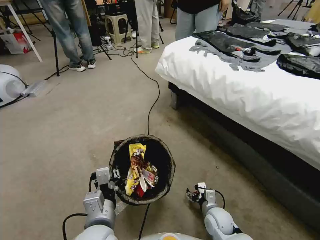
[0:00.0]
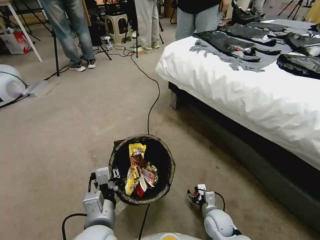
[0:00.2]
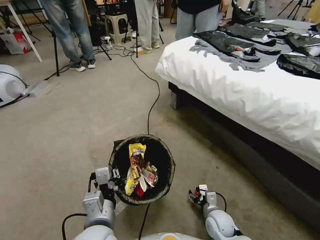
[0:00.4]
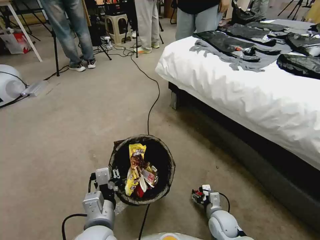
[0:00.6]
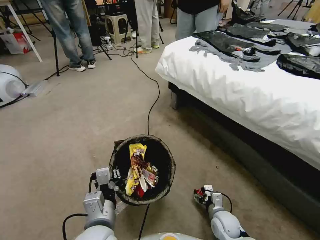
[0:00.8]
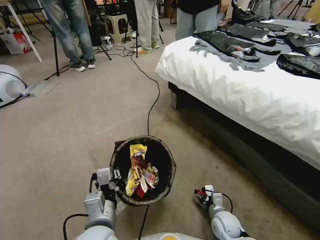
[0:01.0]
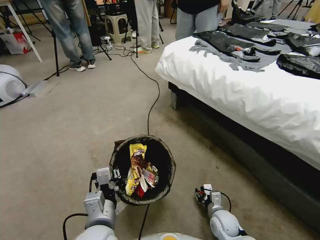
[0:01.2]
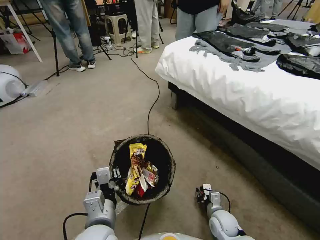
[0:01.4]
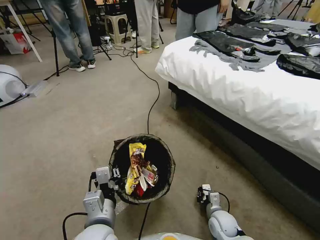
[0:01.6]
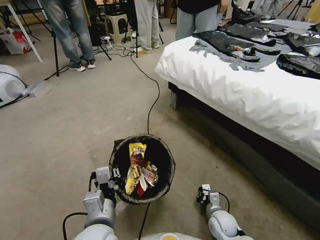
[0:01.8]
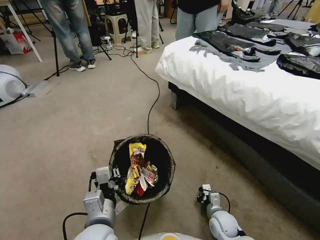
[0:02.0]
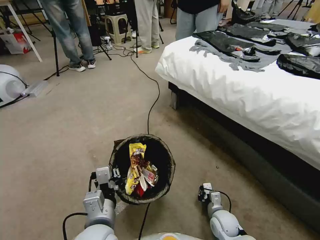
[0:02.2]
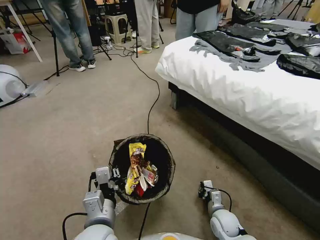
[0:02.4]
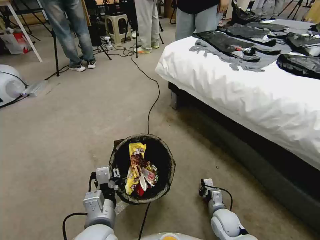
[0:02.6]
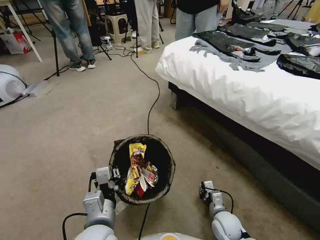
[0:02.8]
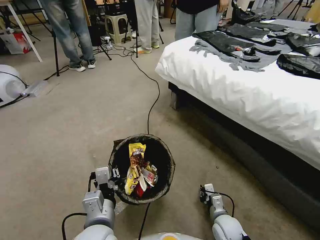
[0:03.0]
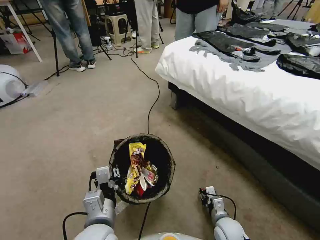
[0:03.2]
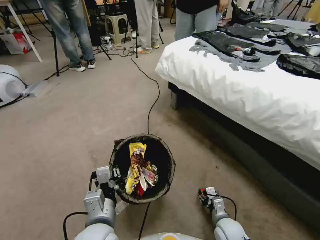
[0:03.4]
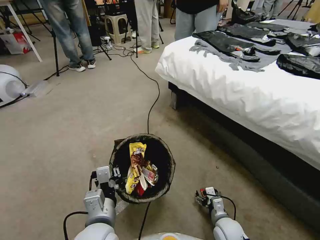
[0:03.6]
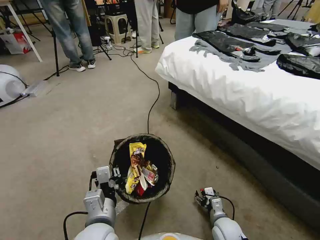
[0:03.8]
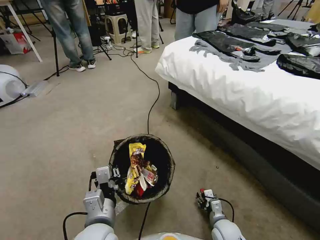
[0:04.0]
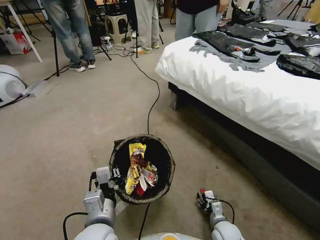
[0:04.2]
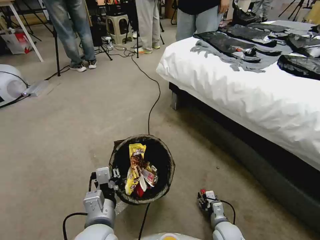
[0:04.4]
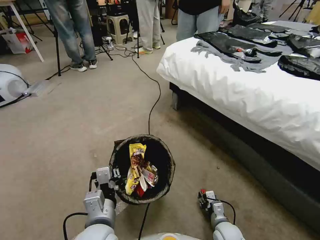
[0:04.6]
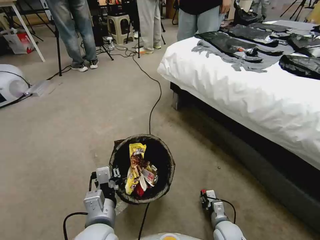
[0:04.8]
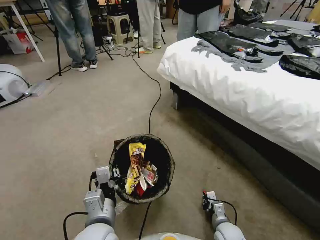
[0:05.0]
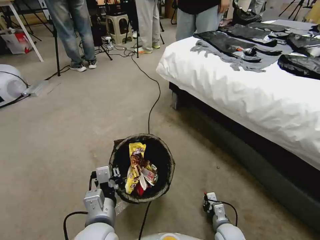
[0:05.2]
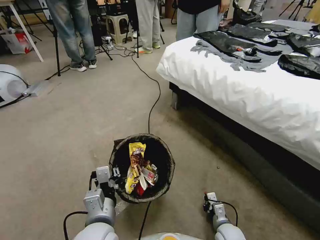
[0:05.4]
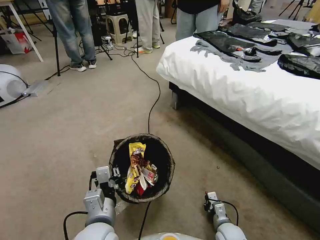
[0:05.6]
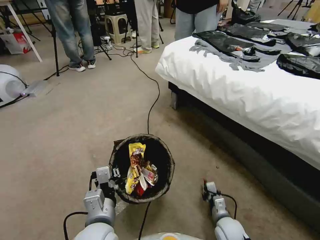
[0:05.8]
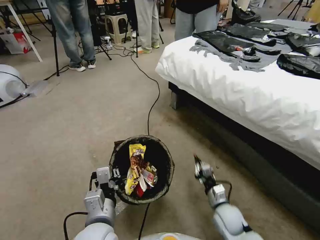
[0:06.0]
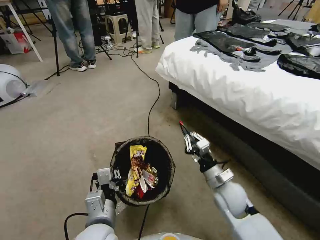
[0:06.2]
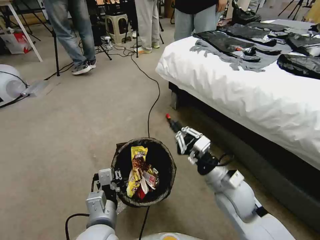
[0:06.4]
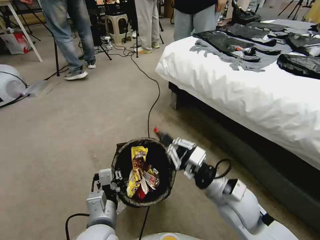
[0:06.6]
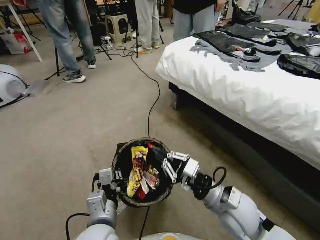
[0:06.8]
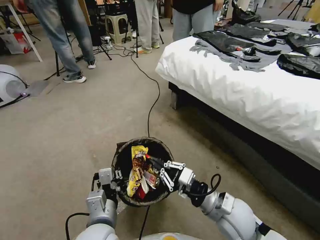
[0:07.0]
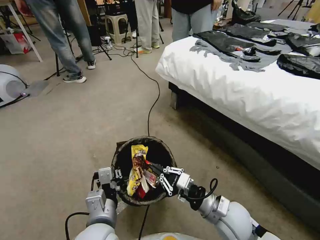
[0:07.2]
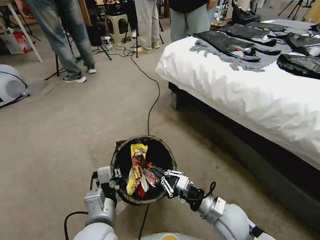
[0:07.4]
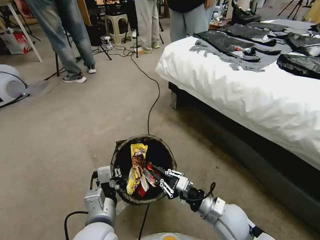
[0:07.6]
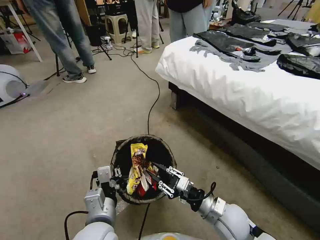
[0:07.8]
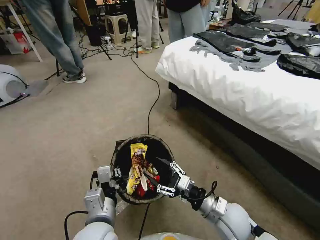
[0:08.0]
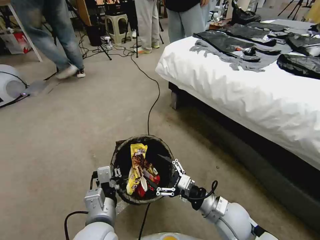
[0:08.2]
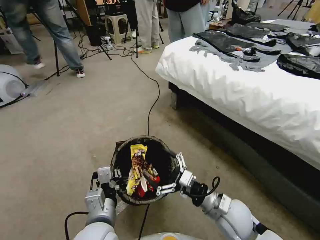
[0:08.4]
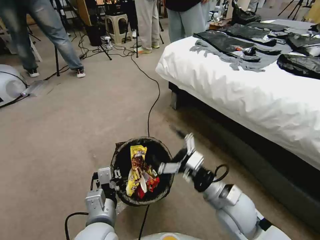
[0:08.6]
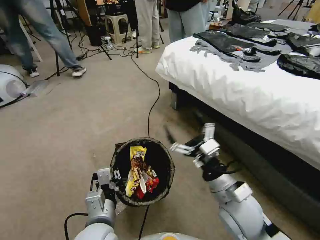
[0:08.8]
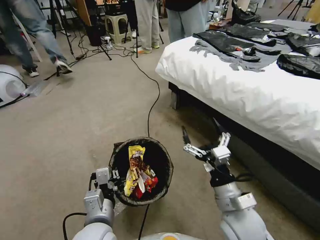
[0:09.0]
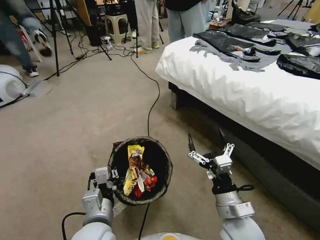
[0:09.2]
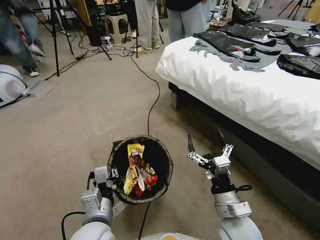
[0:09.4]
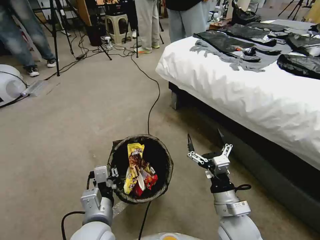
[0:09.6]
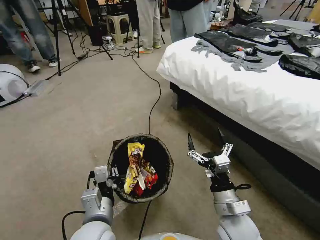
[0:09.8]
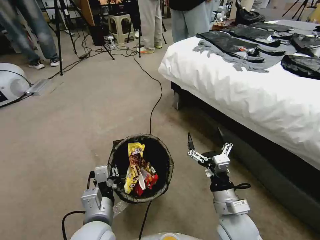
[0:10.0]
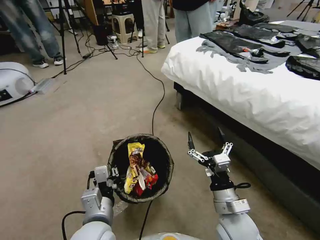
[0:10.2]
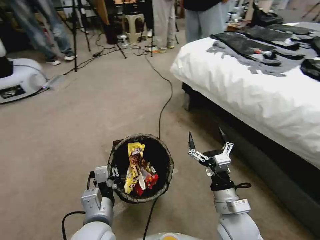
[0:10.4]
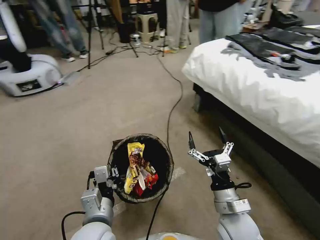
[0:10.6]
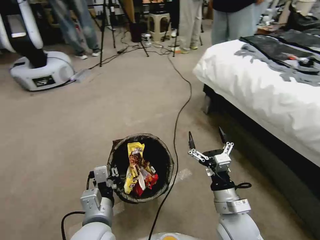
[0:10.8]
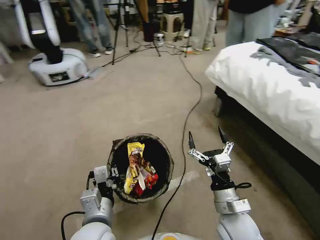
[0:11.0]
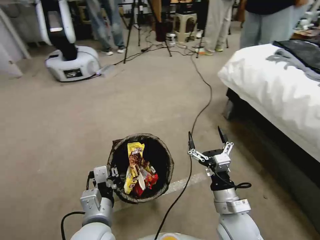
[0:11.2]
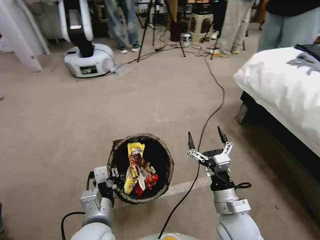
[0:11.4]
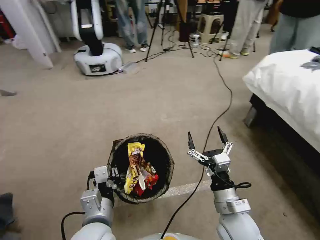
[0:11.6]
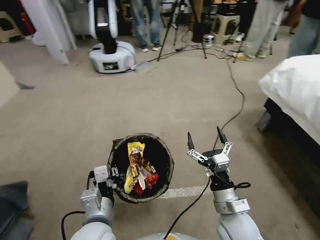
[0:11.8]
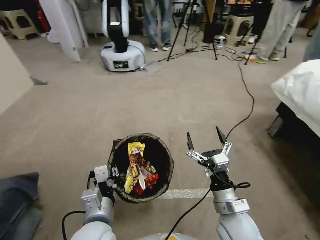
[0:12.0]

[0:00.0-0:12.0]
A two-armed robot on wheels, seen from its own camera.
Task of the whole recording: Pick up the trash bin, then pick up the garbage from the floor and place it into the trash bin.
0:00.0 to 0:01.6: The right gripper closes its fingers.
0:01.6 to 0:03.0: The grippers stay close to where they were, moving slightly.
0:03.0 to 0:04.4: The right gripper opens up.
0:04.4 to 0:06.0: The right gripper shifts roughly 10 cm upward and forward, and closes up.
0:06.0 to 0:07.6: The right gripper is displaced upward by about 10 cm.
0:07.6 to 0:09.0: The right gripper moves upward, some 10 cm, and opens up.

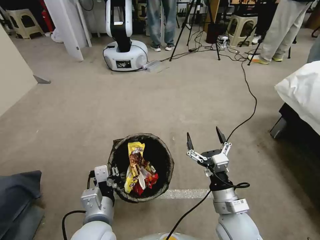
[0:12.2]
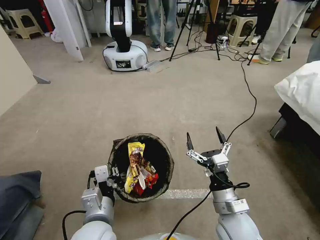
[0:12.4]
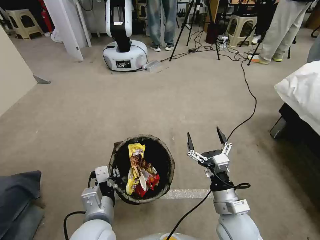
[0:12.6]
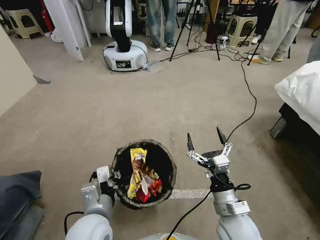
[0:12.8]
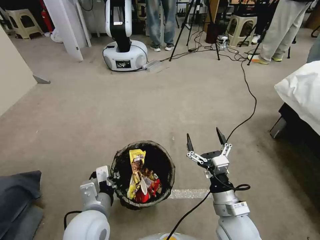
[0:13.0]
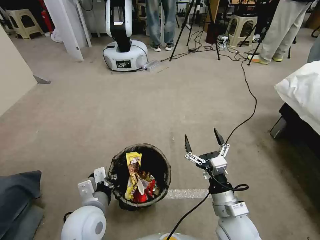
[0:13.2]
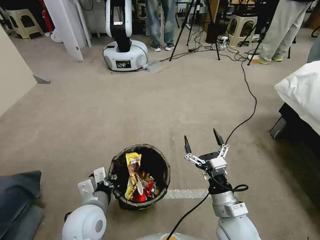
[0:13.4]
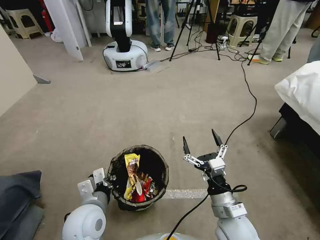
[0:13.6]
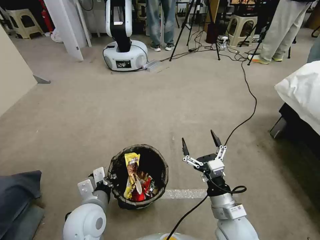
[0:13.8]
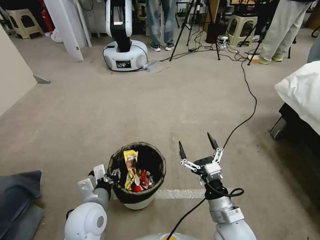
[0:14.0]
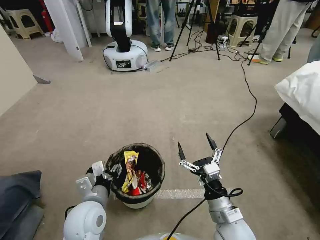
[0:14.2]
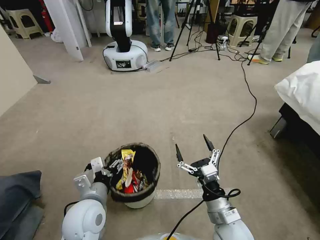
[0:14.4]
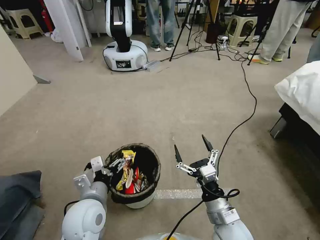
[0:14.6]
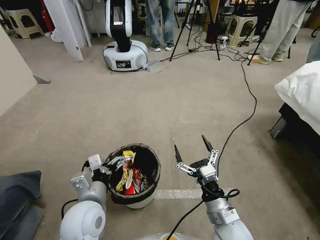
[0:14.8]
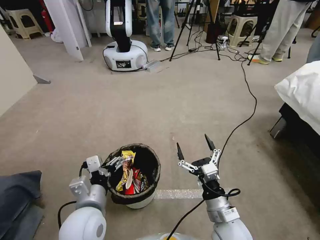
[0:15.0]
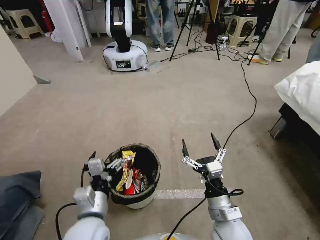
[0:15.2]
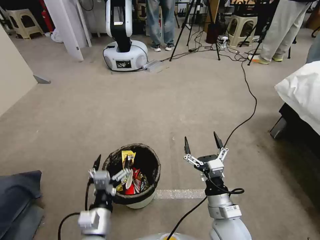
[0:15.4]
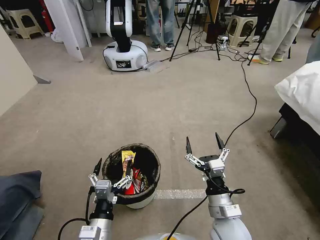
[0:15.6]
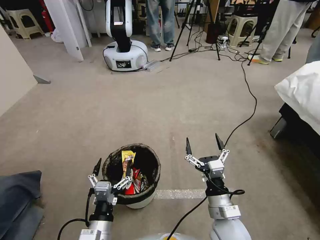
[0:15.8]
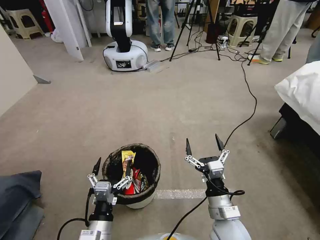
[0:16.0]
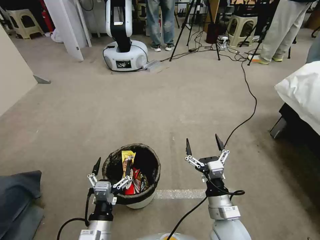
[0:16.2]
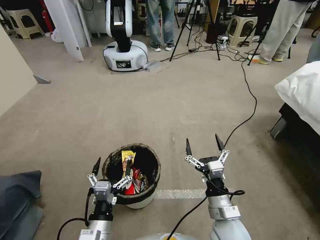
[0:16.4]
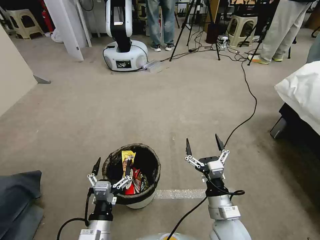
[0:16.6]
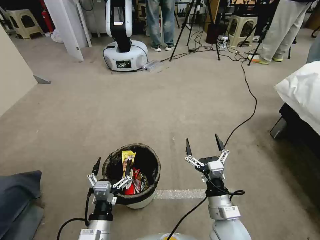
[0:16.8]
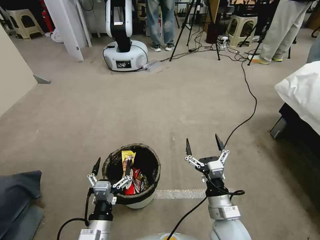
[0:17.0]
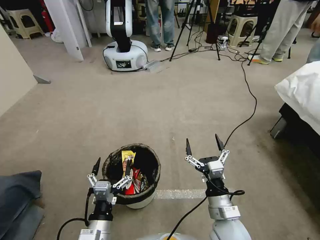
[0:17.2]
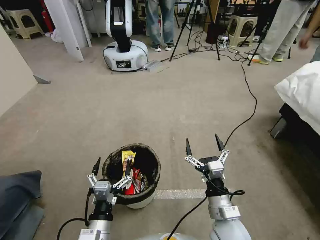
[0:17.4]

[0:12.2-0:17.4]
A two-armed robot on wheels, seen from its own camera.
Task of the whole recording: Pick up the trash bin, then pick up the garbage from the floor and place it into the trash bin.
0:12.2 to 0:14.0: The left gripper moves roughly 5 cm.
0:14.0 to 0:15.6: The left gripper travels backward and downward by approximately 10 cm, and opens.
0:15.6 to 0:17.4: Both grippers stay put.

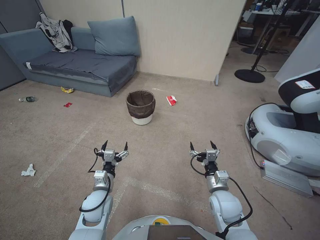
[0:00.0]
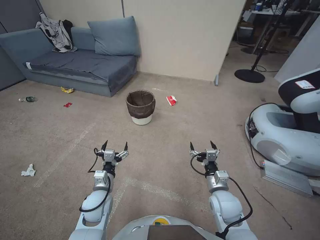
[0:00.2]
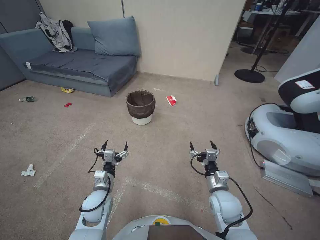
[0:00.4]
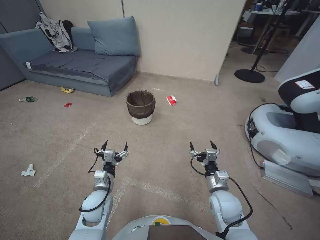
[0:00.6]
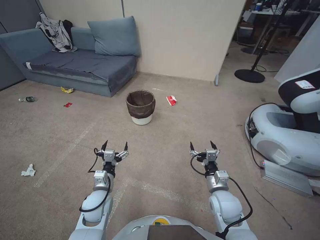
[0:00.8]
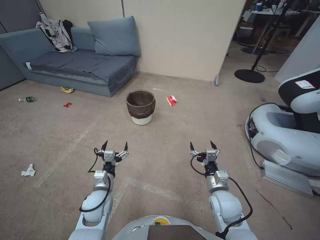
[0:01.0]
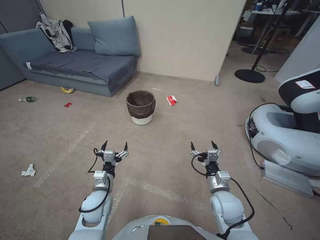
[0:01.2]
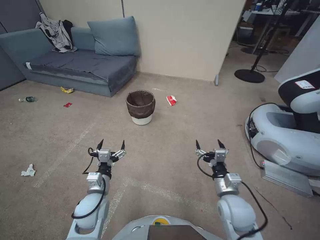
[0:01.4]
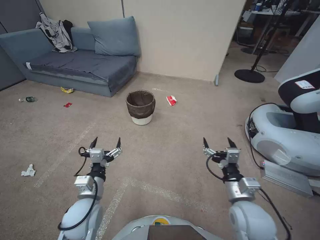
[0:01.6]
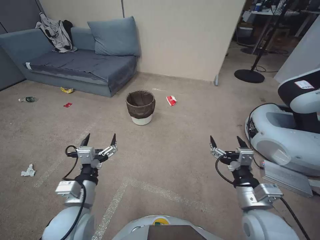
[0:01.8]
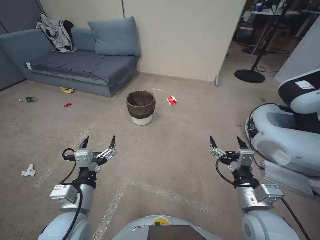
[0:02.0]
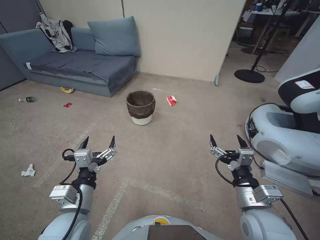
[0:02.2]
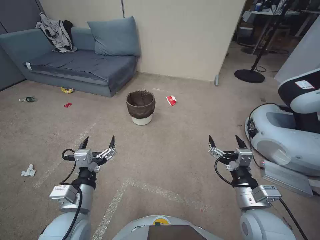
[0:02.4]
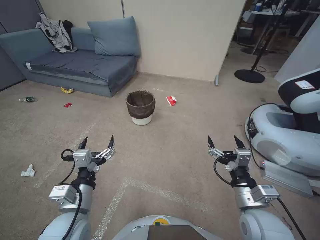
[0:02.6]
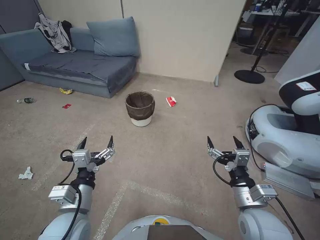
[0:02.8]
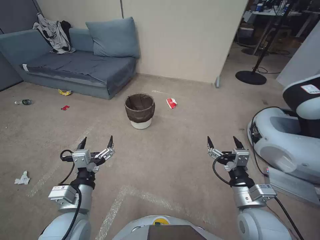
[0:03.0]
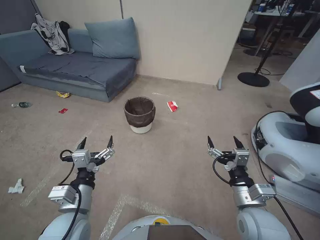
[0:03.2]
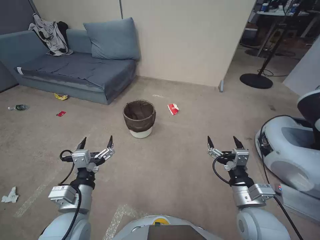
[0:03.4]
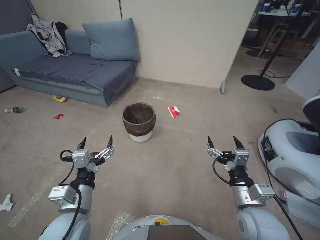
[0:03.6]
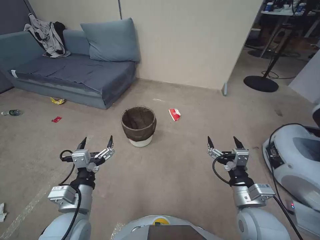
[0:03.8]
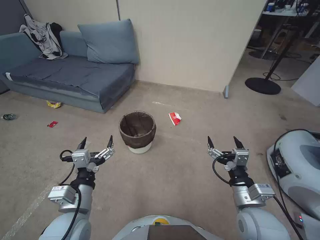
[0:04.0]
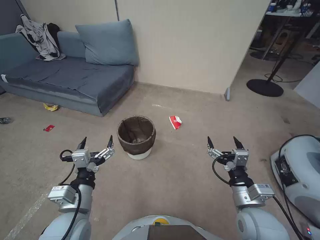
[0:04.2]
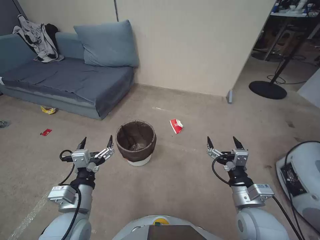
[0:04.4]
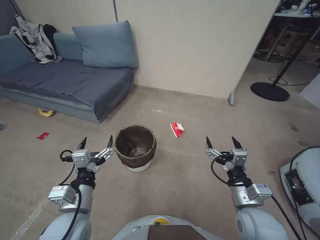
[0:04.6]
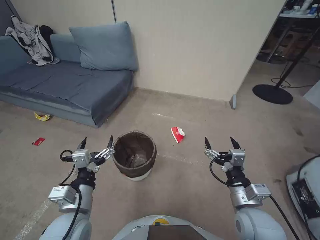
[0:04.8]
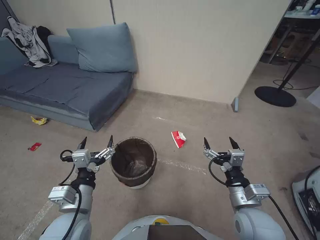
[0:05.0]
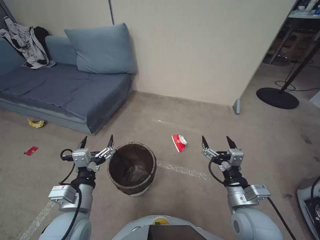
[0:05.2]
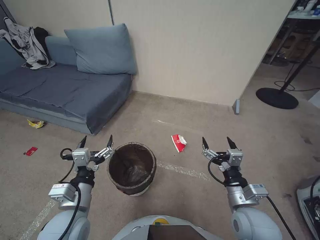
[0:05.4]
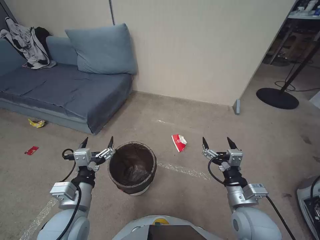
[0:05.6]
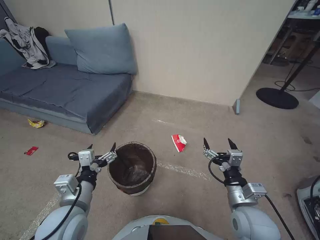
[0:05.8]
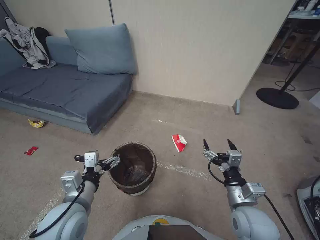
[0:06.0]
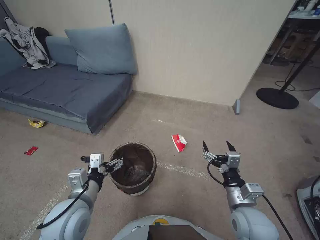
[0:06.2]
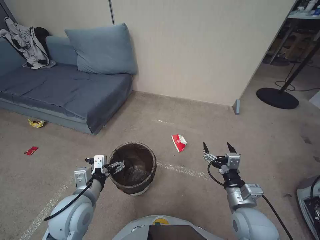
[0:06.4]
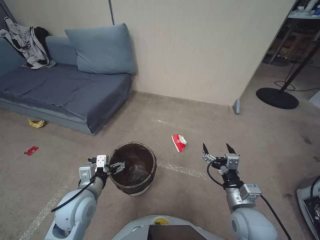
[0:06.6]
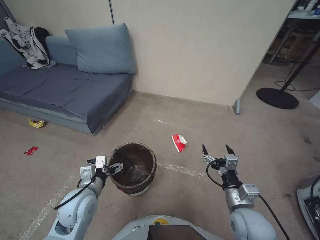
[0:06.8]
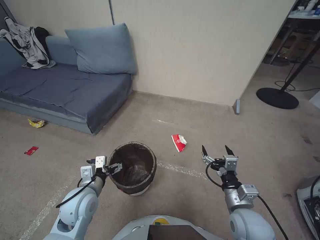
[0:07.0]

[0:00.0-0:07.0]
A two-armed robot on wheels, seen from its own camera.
Task of the whole recording: Pick up the trash bin, then pick up the garbage from the floor and place it into the trash bin.
0:01.4 to 0:02.8: Both grippers travel together upward and backward, approximately 15 cm.
0:05.6 to 0:07.0: The left gripper travels forward by roughly 5 cm.
